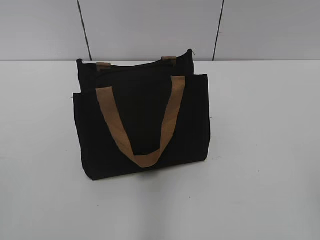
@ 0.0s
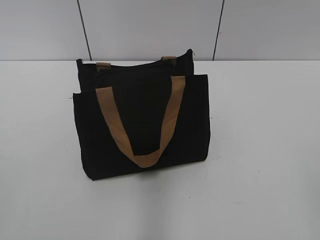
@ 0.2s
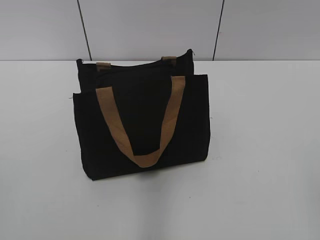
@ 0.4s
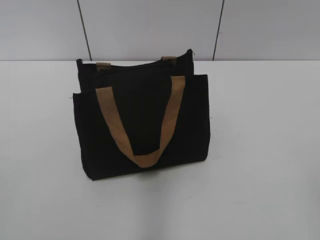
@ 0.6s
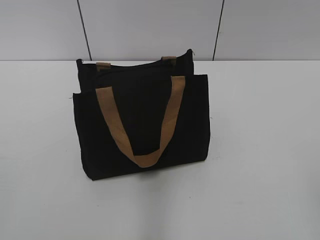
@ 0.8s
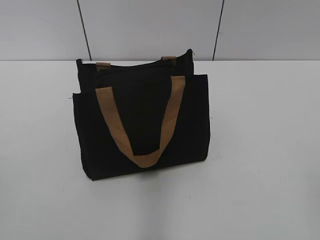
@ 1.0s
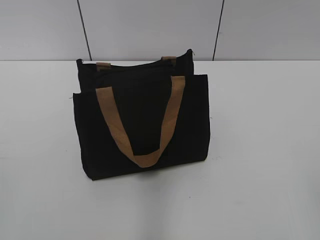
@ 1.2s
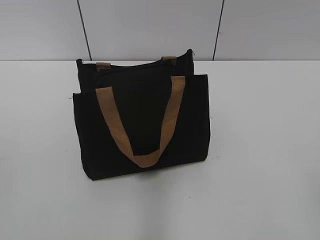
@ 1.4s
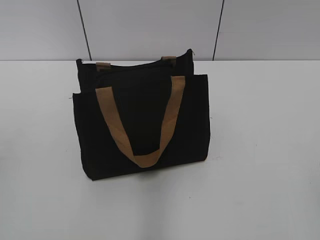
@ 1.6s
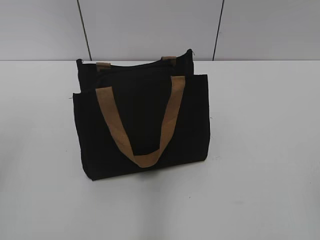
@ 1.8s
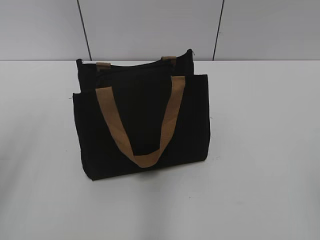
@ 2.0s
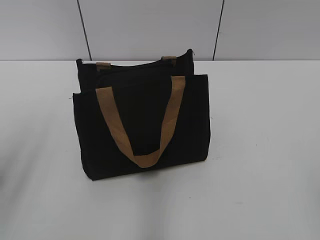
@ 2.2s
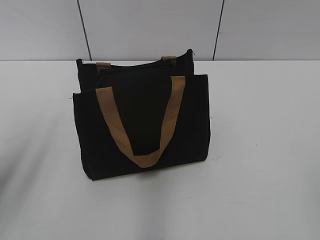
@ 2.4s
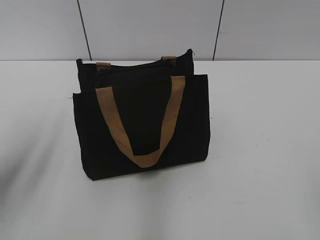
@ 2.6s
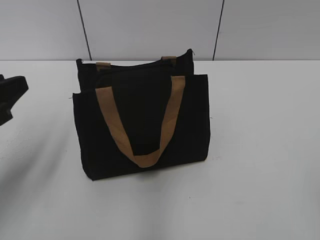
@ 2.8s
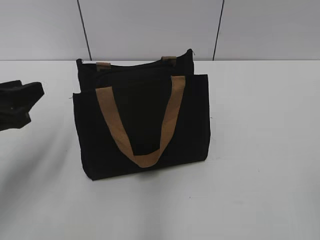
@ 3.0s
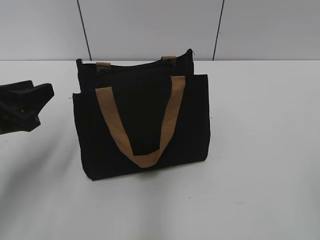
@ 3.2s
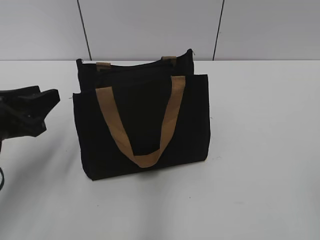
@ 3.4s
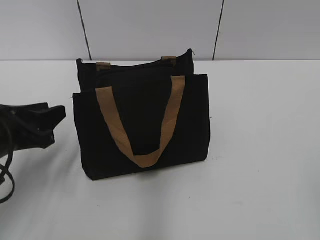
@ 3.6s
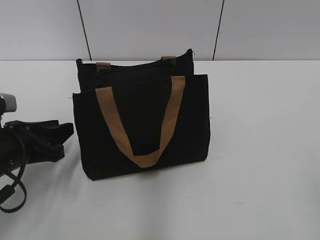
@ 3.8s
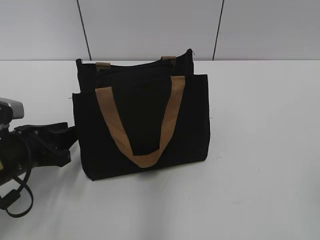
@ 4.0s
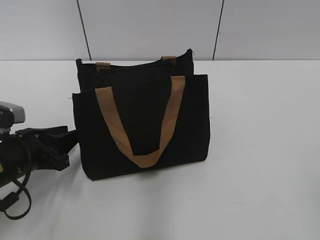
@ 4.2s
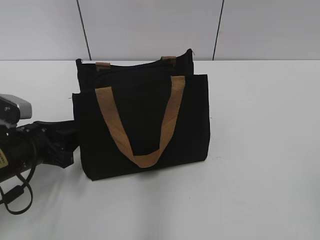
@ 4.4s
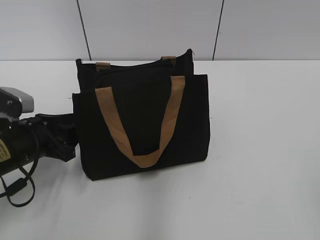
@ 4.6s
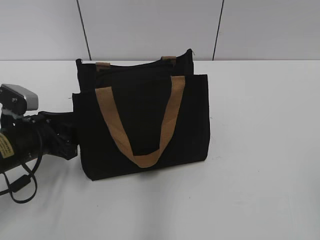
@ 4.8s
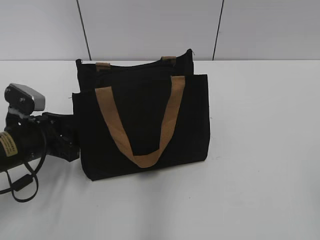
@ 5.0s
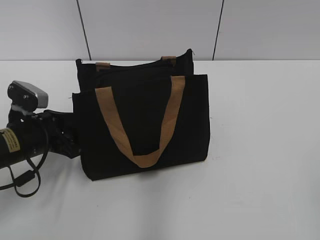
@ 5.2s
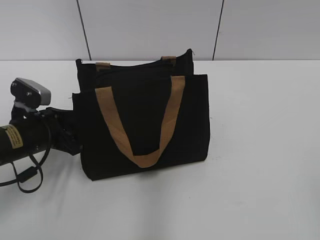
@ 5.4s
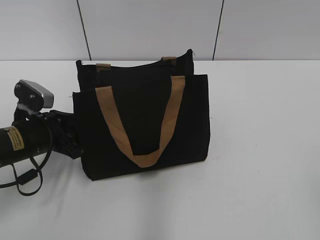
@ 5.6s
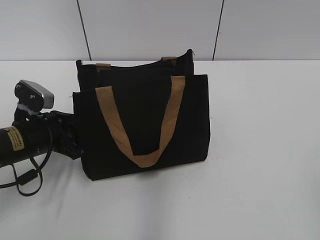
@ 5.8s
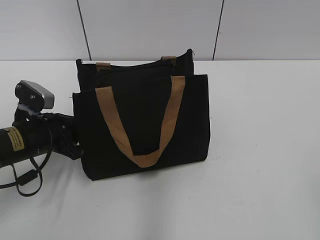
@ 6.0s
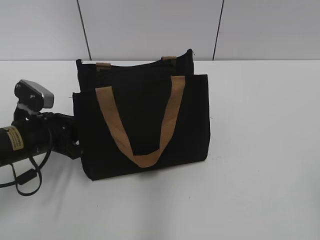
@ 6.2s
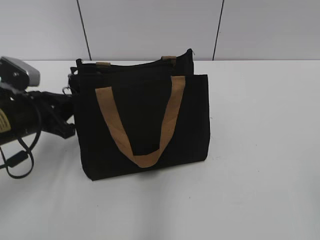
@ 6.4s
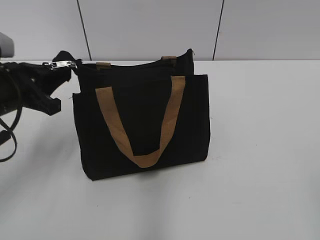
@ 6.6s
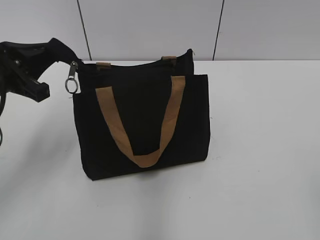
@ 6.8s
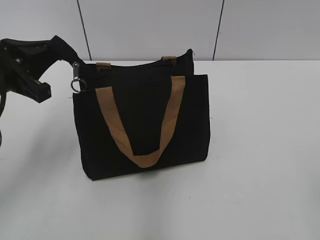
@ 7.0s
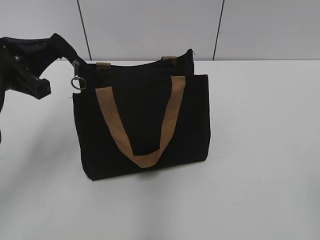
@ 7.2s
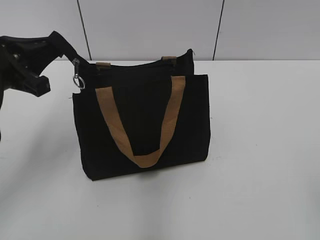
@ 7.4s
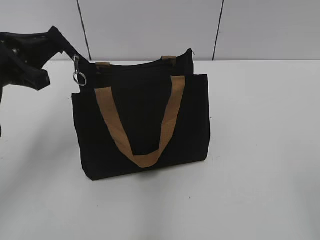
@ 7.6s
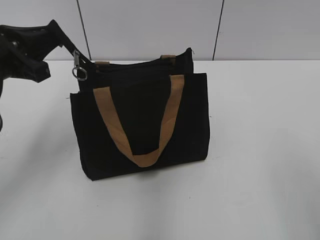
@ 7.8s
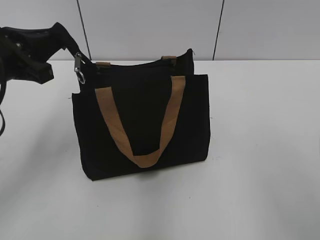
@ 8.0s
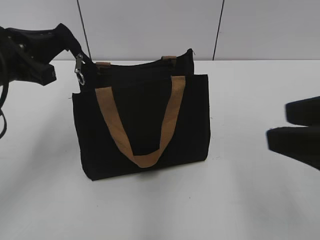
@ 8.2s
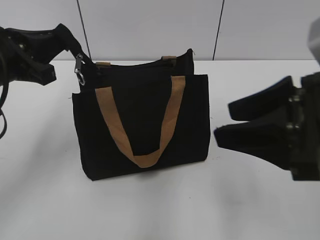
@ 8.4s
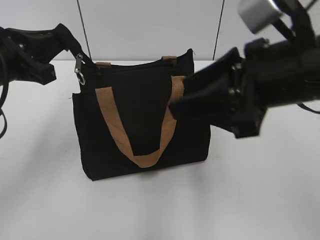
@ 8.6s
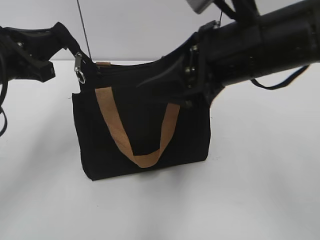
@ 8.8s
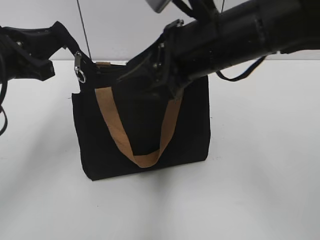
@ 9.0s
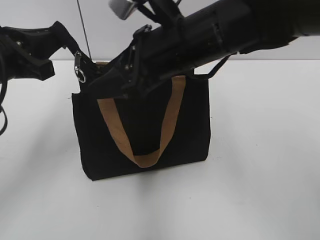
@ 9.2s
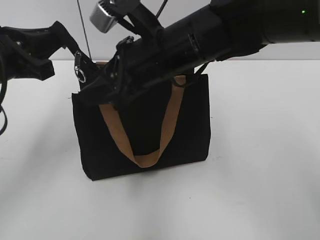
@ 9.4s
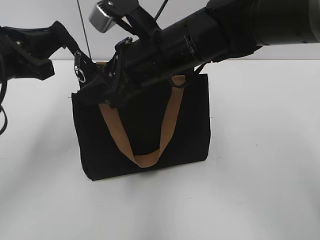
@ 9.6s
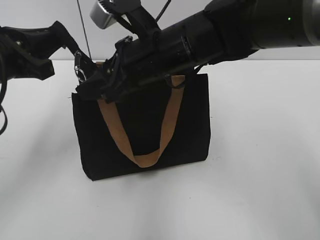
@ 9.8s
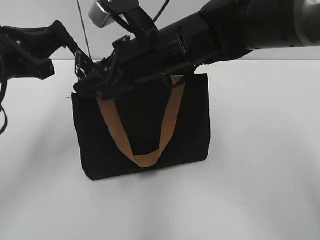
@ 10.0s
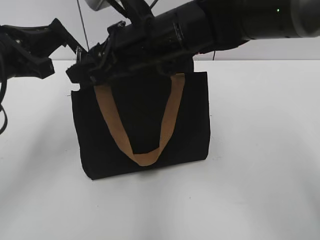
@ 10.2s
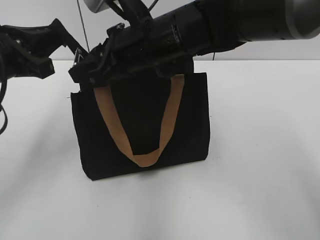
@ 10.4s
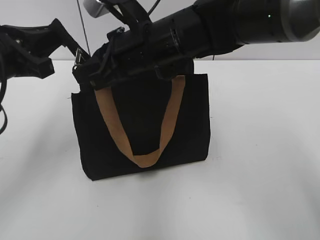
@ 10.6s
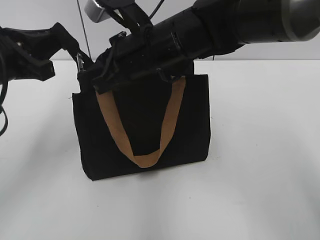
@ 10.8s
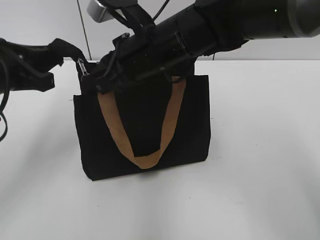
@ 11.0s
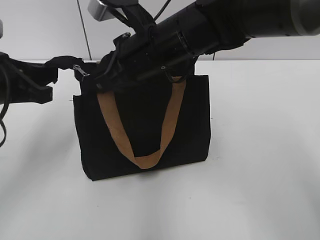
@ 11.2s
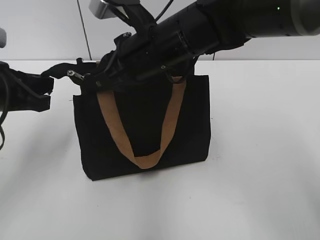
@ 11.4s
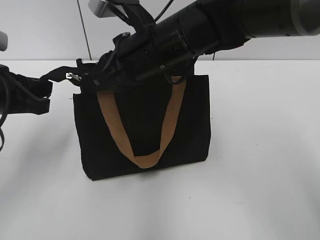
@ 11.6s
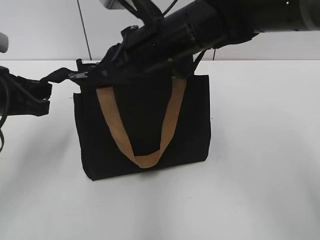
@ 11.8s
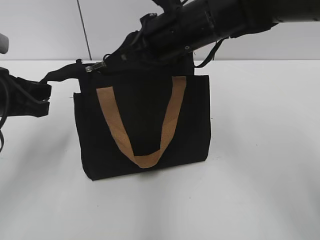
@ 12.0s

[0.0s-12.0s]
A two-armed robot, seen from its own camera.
1.6s to 3.0s: The left gripper heads forward, downward and to the right, covering about 20 cm.
3.0s to 4.4s: The left gripper moves downward, some 10 cm.
4.4s to 6.0s: The left gripper closes its fingers.
6.0s to 7.6s: The left gripper heads upward, covering roughly 15 cm.
7.6s to 9.0s: The right gripper travels forward and to the left by about 35 cm.
9.0s to 10.4s: The right gripper heads to the left and forward, covering roughly 10 cm, and closes up.
10.4s to 12.0s: The right gripper closes up.

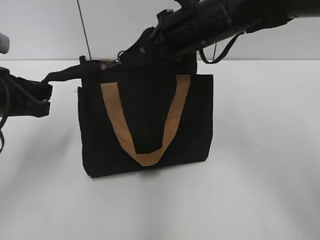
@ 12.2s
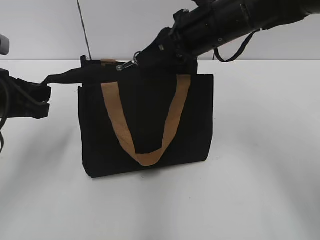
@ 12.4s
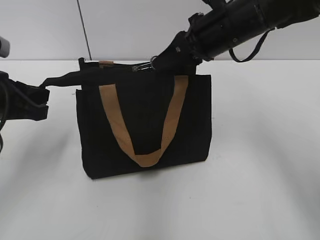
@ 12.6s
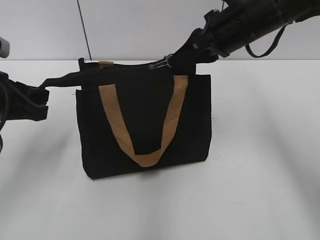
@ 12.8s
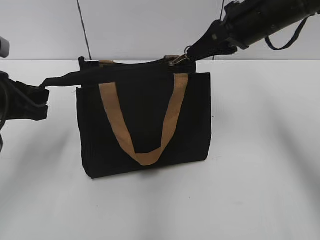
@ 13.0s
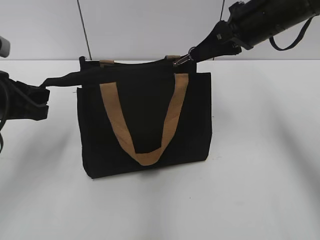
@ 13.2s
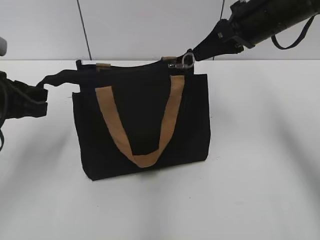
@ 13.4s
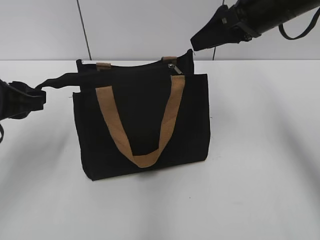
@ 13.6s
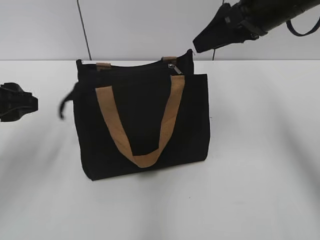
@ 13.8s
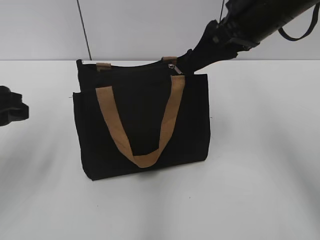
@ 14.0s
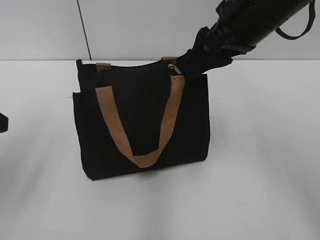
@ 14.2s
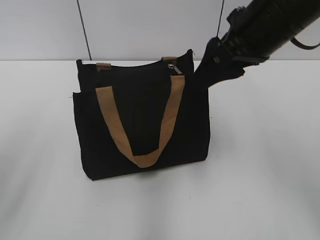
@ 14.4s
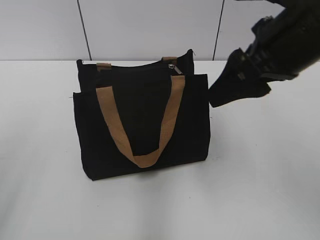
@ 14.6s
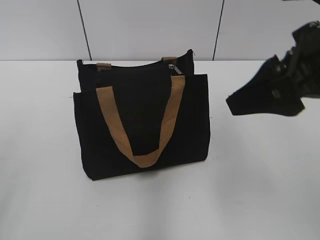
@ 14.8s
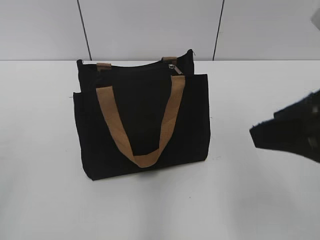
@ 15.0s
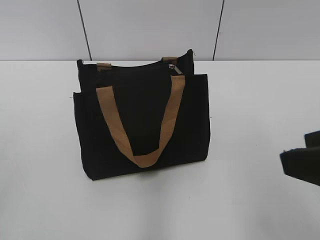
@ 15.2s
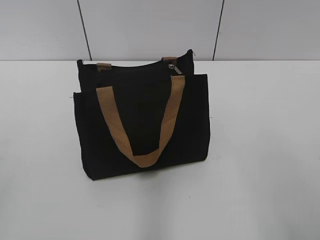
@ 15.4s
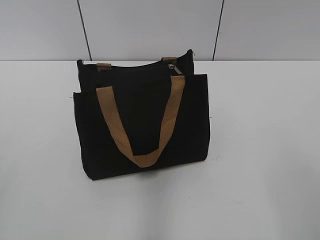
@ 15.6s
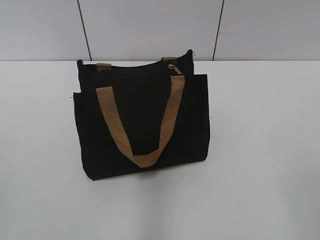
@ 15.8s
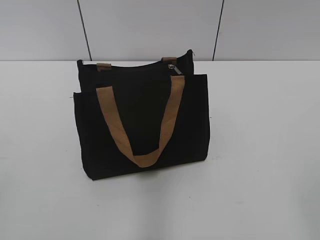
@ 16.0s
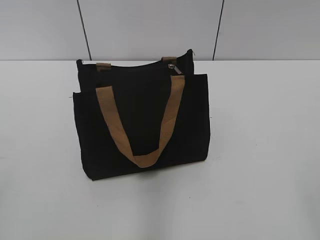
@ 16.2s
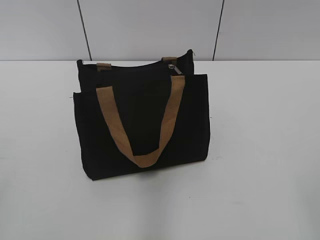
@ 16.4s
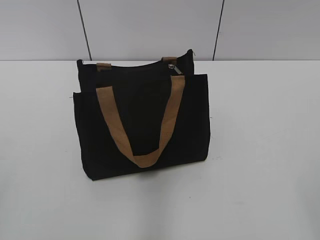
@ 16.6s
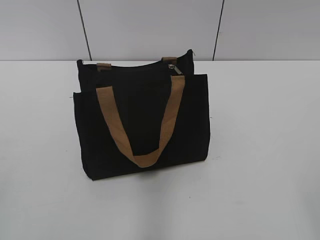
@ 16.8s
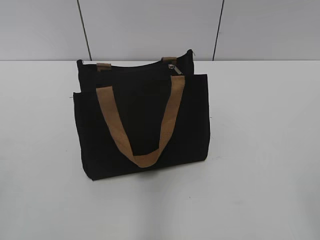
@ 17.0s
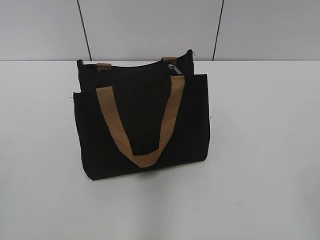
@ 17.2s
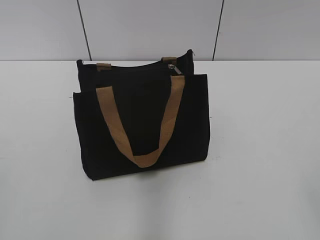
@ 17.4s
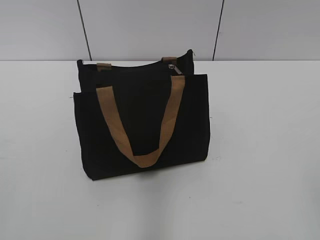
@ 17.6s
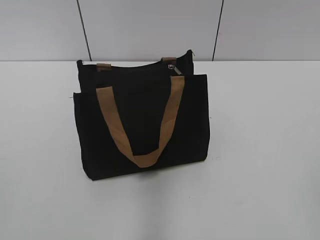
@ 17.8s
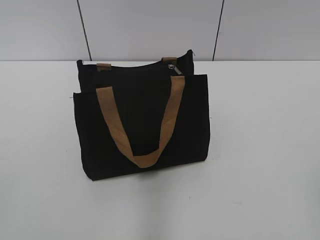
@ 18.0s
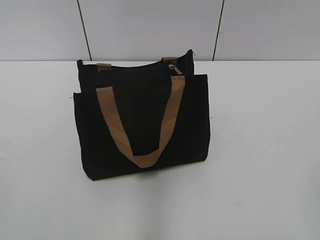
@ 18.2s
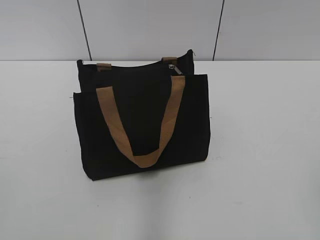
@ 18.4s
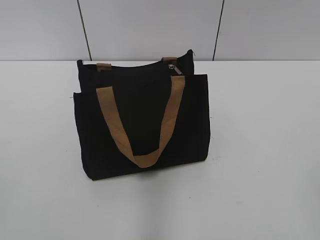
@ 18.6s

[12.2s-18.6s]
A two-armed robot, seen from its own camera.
12.2s to 13.8s: The left gripper opens its fingers. The right gripper moves to the right, approximately 10 cm, and opens up.
13.8s to 15.4s: Both grippers travel together backward, roughly 25 cm.

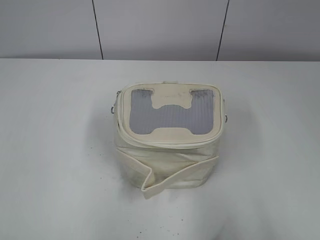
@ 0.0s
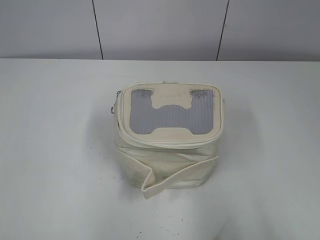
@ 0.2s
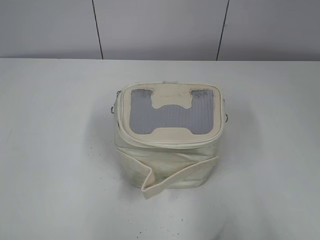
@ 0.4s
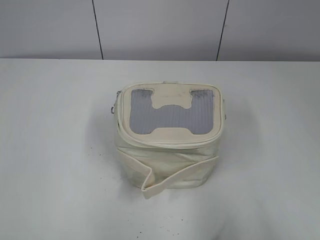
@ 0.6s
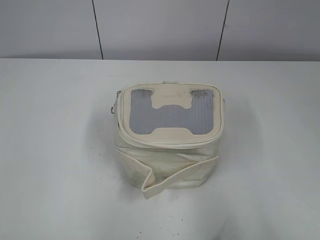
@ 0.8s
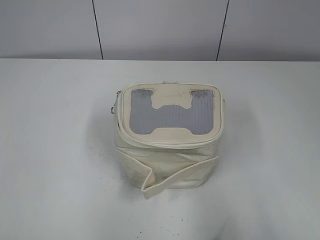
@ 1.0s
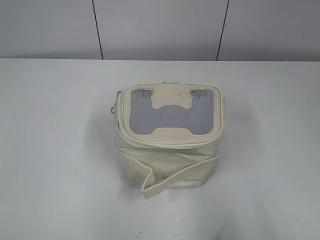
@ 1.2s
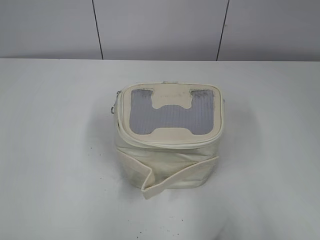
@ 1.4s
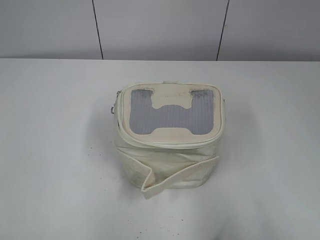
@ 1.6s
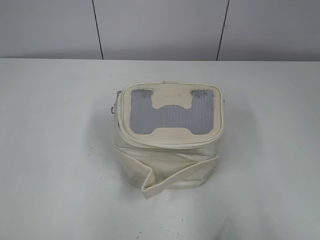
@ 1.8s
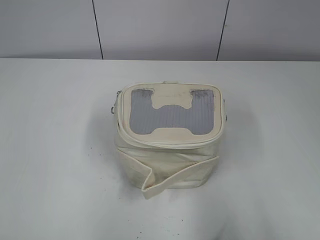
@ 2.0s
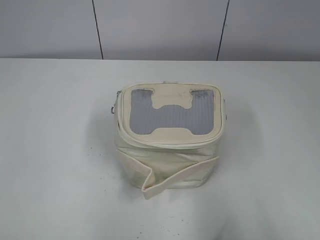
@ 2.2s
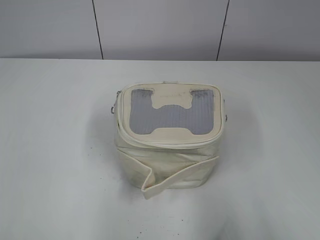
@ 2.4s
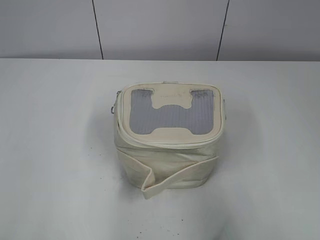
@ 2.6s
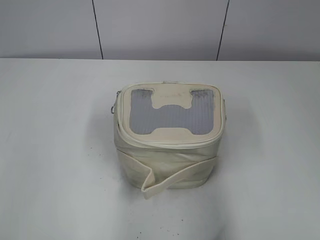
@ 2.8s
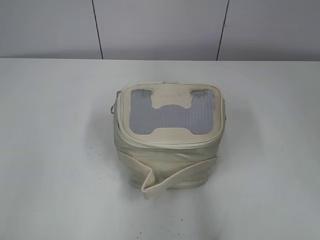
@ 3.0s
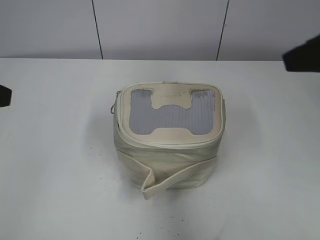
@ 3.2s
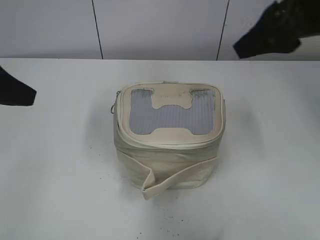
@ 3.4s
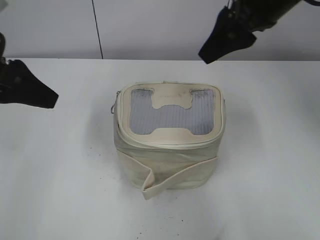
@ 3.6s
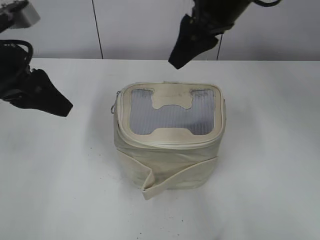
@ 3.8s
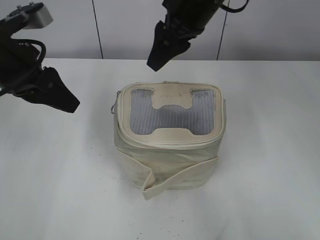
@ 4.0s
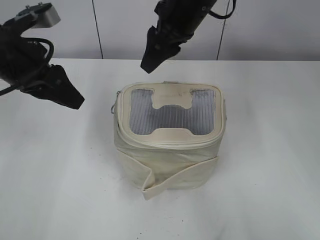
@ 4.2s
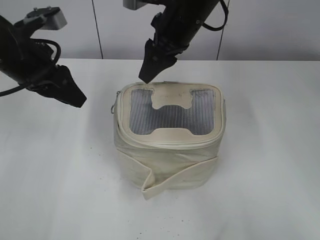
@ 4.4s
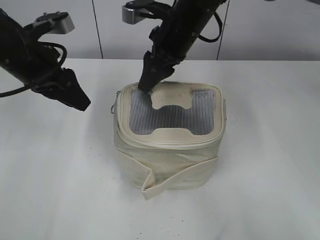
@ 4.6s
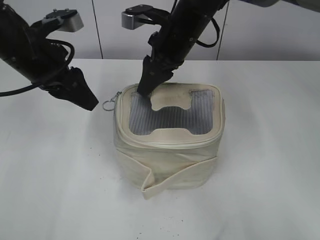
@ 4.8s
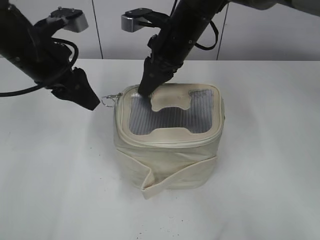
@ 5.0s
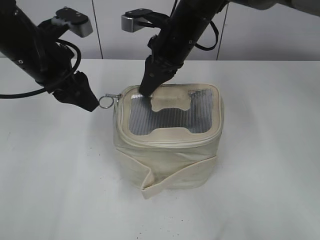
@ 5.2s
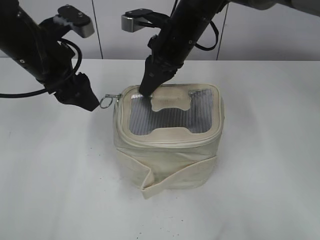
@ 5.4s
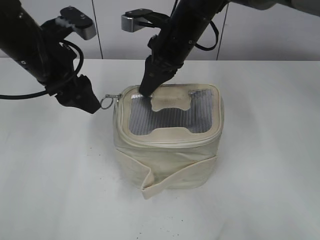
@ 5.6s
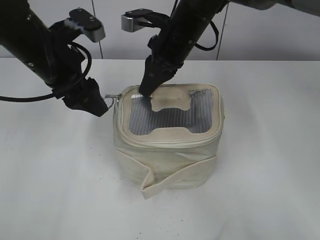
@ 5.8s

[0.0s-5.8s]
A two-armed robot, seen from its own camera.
1.4s to 2.8s: Both grippers travel together forward, some 10 cm.
2.8s to 4.4s: The right gripper travels forward and to the left by about 40 cm. Meanwhile the left gripper is displaced forward by approximately 25 cm.
4.4s to 5.8s: The left gripper opens up. Meanwhile the right gripper closes up.
